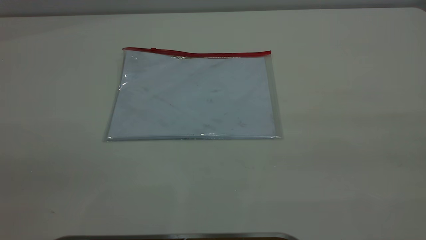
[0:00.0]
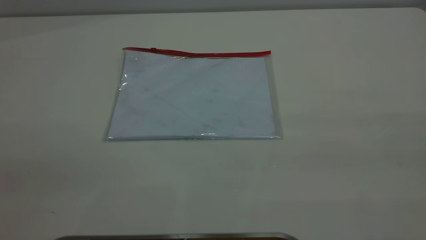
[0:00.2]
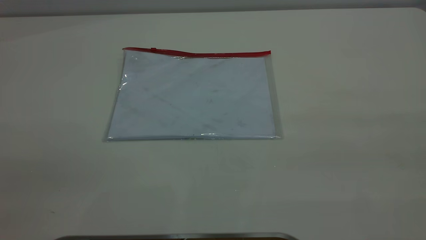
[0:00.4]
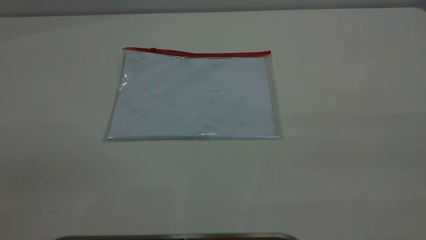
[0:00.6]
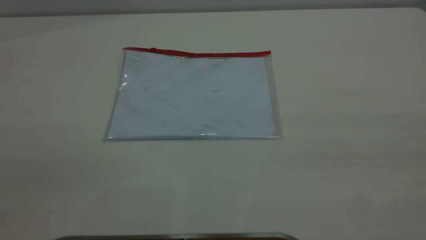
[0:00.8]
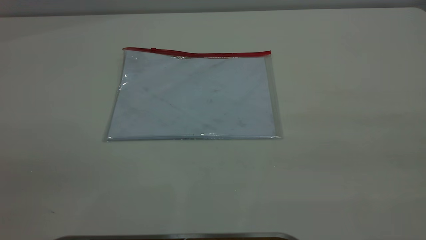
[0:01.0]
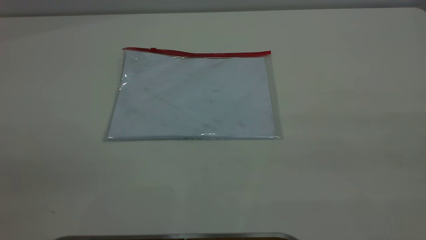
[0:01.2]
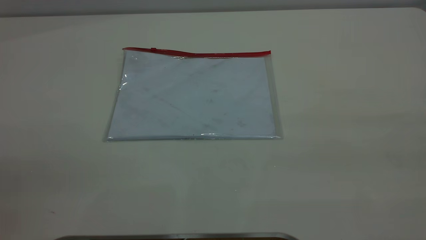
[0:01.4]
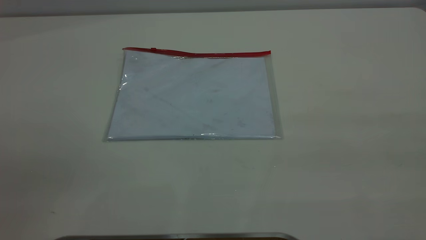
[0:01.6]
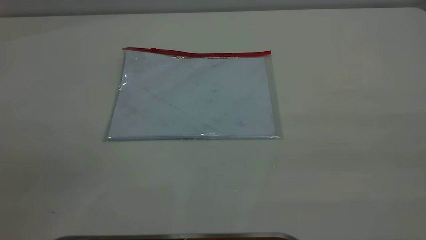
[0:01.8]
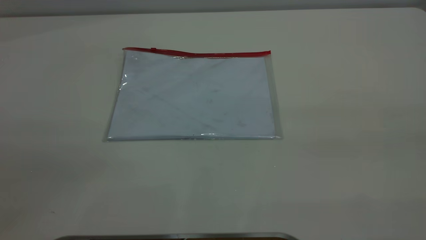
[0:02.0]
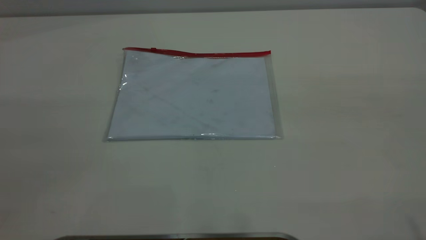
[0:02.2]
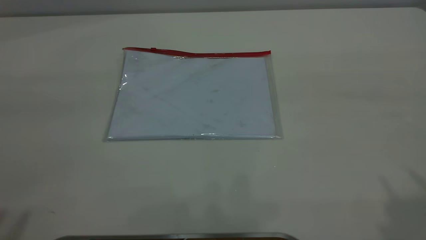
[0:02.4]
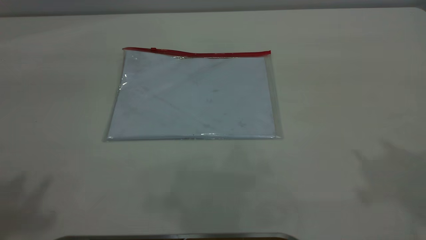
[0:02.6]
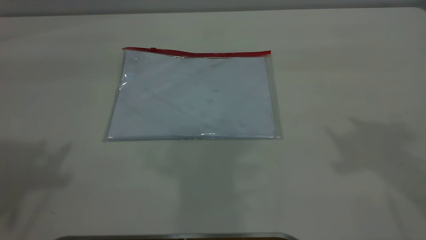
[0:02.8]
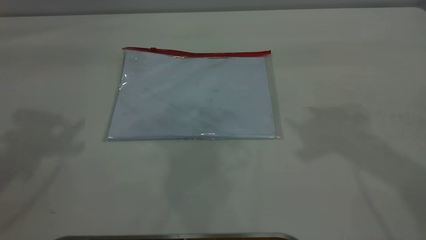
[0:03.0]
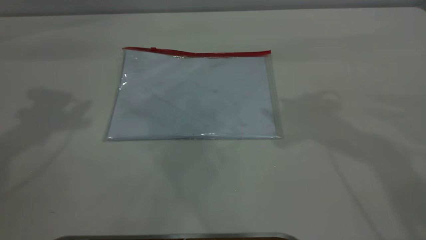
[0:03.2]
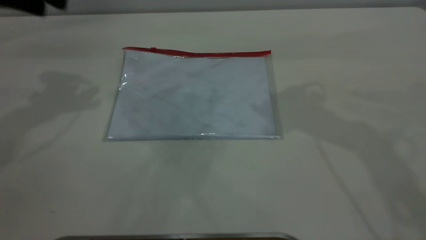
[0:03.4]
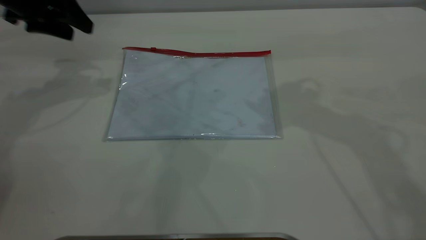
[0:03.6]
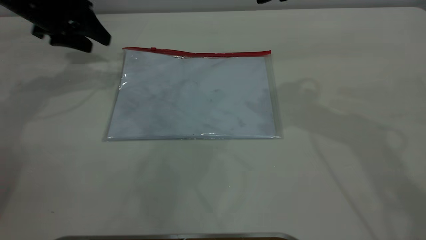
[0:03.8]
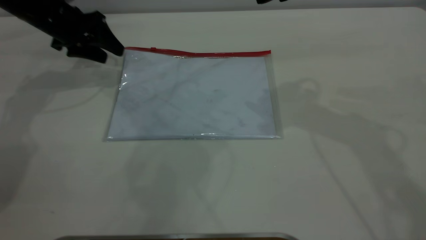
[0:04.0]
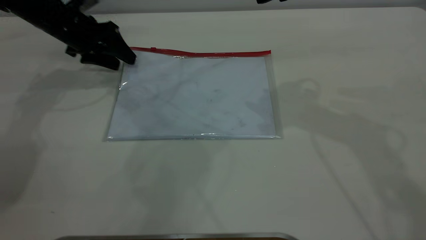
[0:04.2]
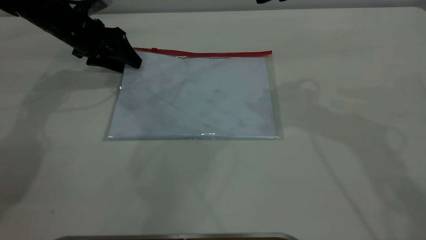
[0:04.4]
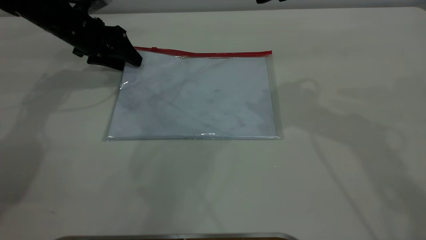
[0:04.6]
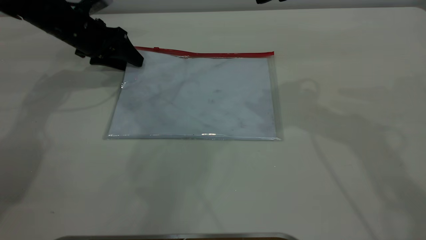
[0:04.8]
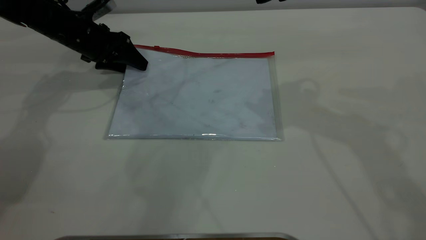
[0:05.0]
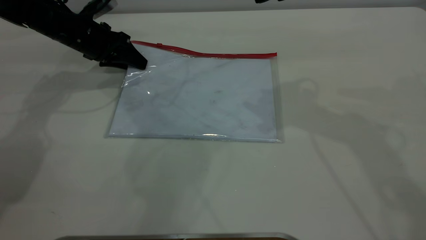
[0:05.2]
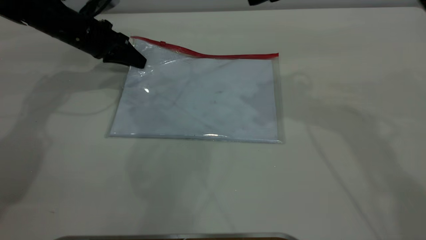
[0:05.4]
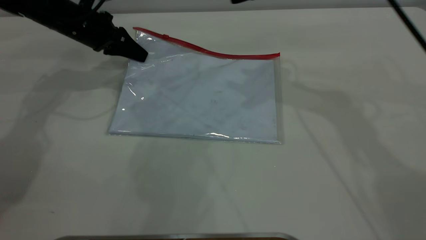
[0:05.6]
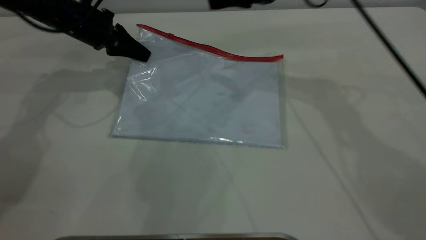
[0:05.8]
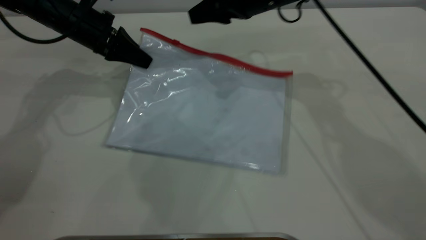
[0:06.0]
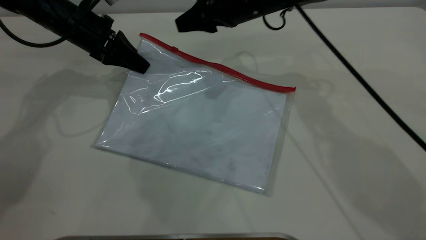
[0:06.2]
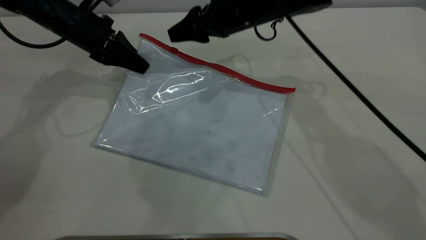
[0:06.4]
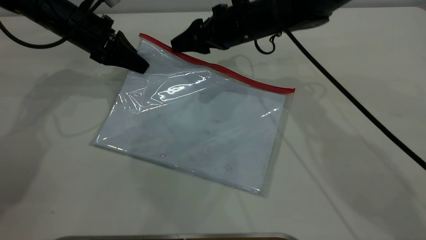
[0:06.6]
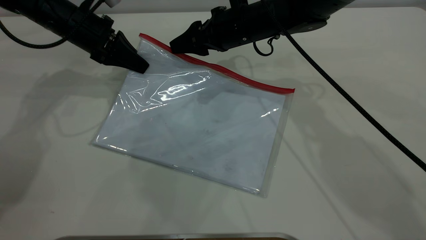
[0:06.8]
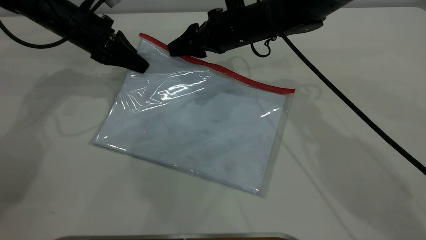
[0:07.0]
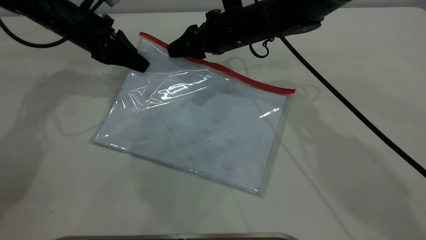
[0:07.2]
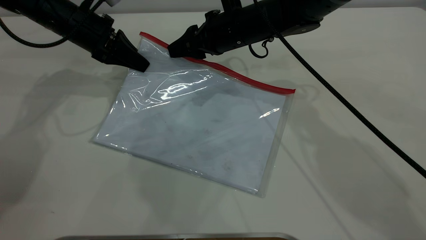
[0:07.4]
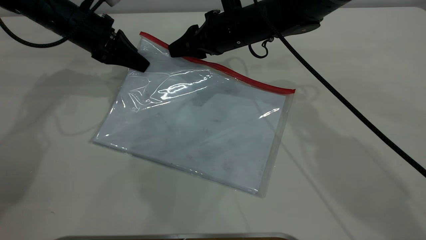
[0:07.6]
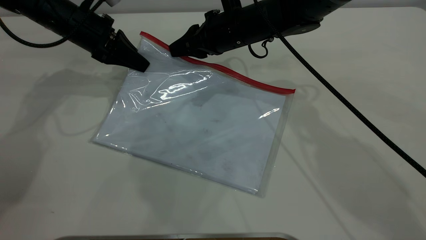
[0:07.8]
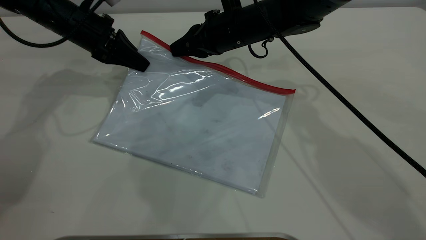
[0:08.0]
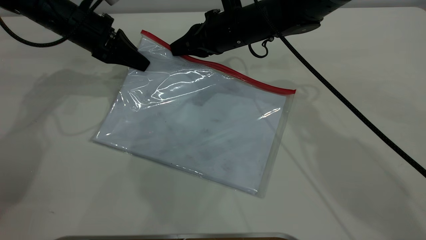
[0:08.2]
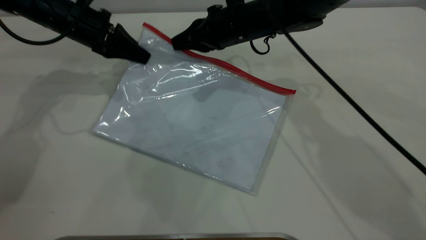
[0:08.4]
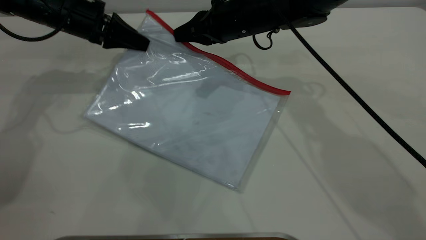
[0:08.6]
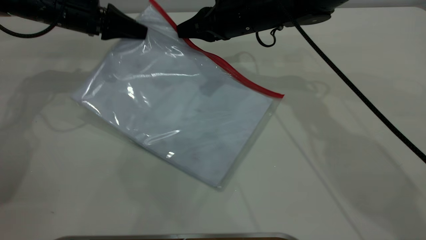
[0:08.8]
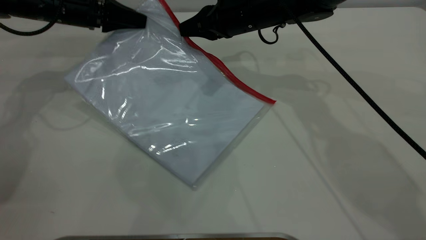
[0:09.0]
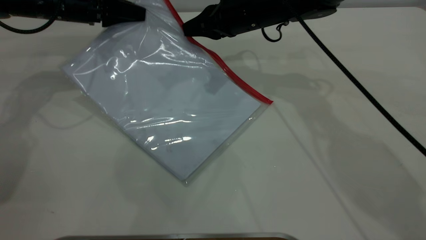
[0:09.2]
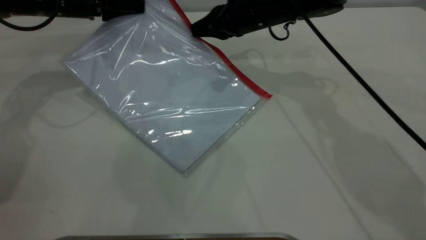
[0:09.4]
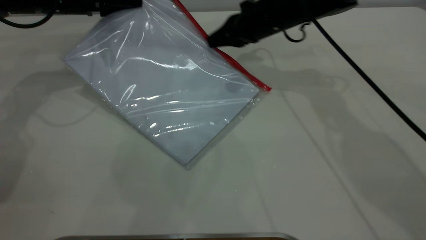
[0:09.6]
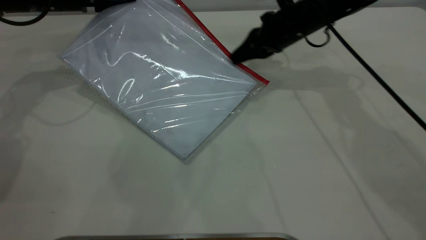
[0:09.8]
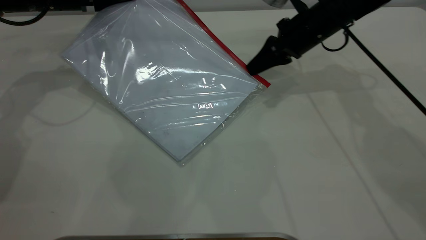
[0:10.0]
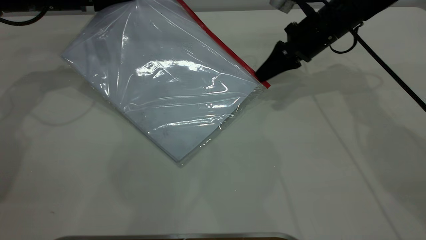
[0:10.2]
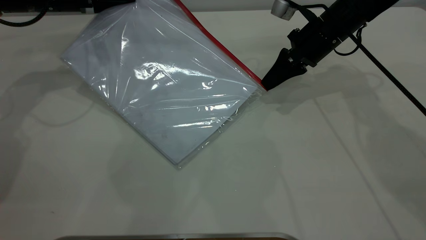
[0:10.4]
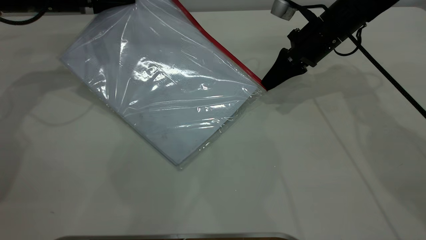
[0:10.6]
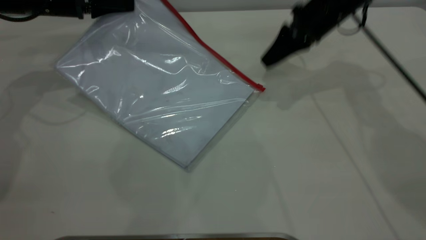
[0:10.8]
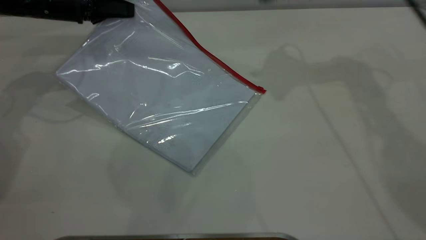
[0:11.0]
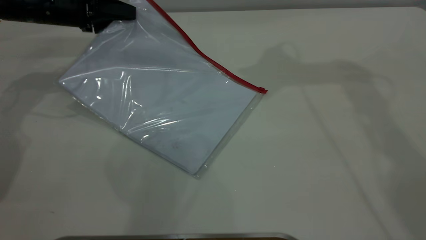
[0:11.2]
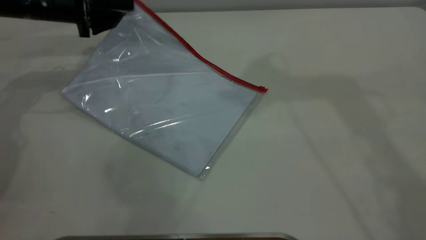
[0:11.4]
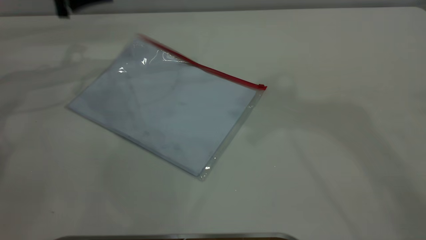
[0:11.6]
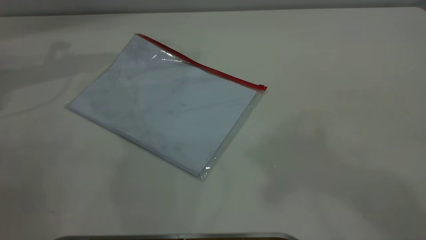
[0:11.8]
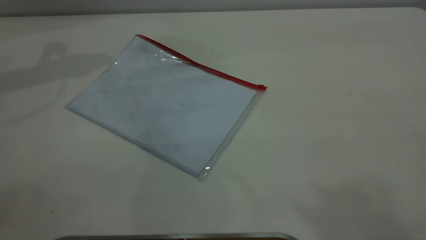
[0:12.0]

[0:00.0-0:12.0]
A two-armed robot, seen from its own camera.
Step, 0:00.0 to 0:05.6: Pick up the transparent plastic bag with the left gripper.
Step, 0:06.0 to 0:10.6: Pulling up the zipper on the transparent plastic bag with the right gripper to close it.
Step, 0:11.0 to 0:11.4: Place the transparent plastic bag.
0:00.0 to 0:01.6: Neither gripper changes place.
0:03.0 to 0:04.4: The left gripper goes approximately 30 cm downward and forward.
0:04.4 to 0:06.0: The right gripper goes about 15 cm downward, forward and to the left. Meanwhile the left gripper closes.
0:06.0 to 0:07.6: The right gripper is displaced downward by about 5 cm, and closes.
0:07.6 to 0:09.0: The right gripper closes up.
0:09.0 to 0:10.4: The right gripper travels to the right by approximately 10 cm.
0:10.4 to 0:12.0: The right gripper is displaced upward and backward by roughly 60 cm, and opens; the left gripper goes some 20 cm upward, and opens its fingers.
